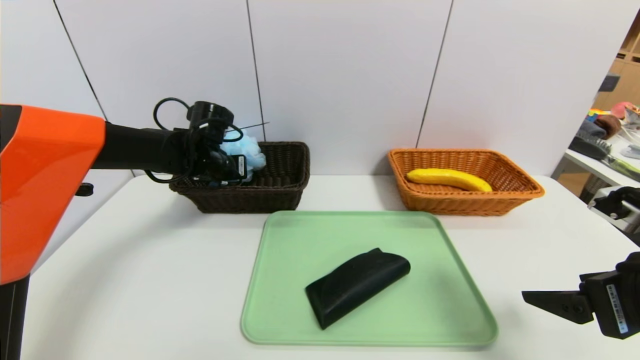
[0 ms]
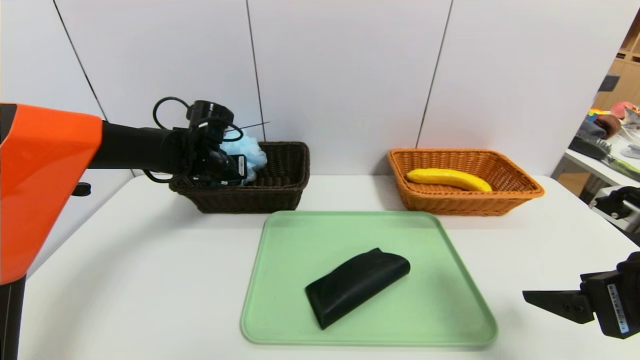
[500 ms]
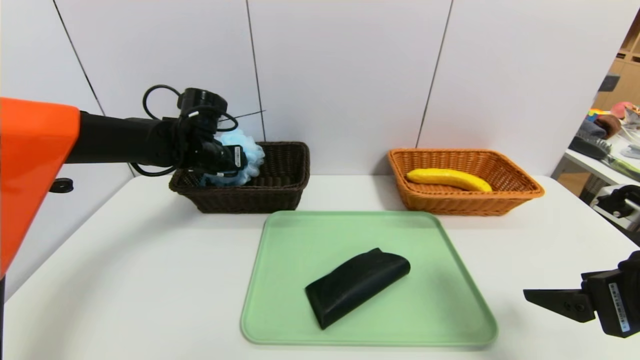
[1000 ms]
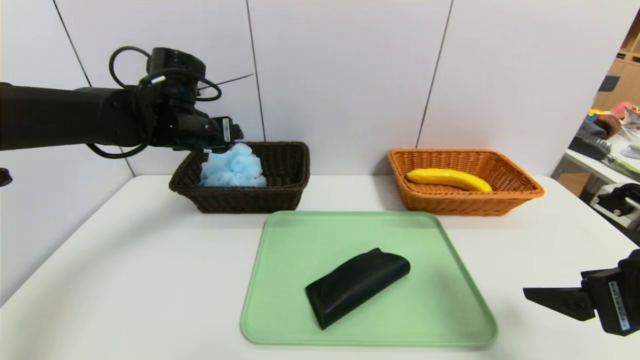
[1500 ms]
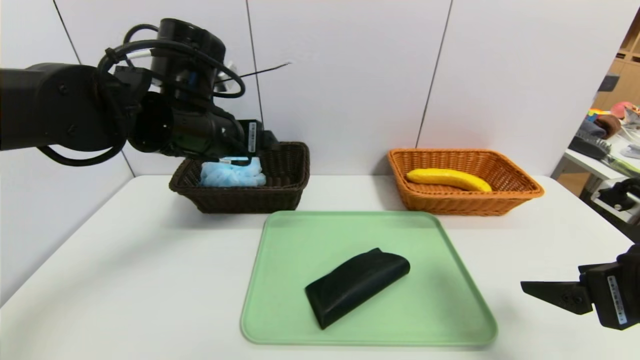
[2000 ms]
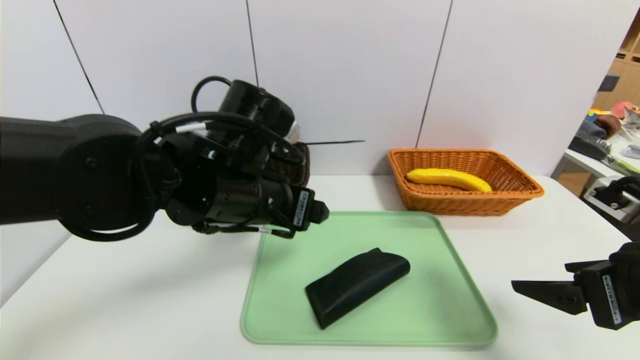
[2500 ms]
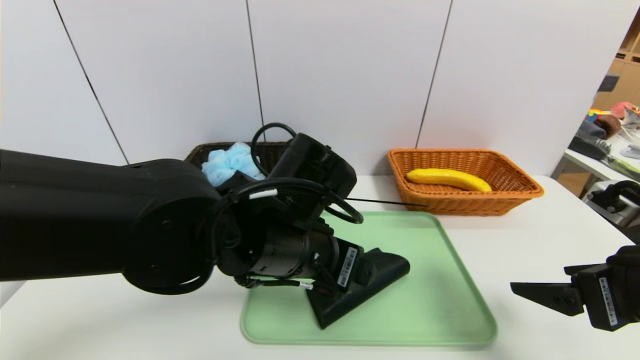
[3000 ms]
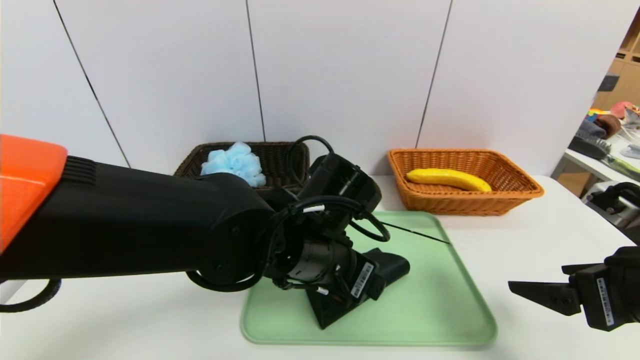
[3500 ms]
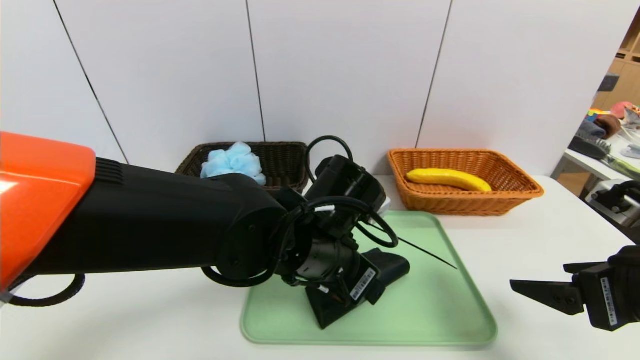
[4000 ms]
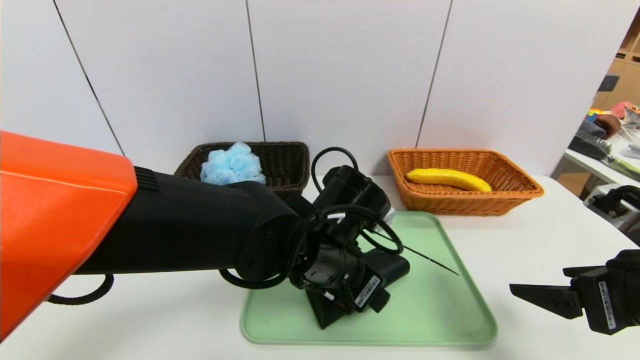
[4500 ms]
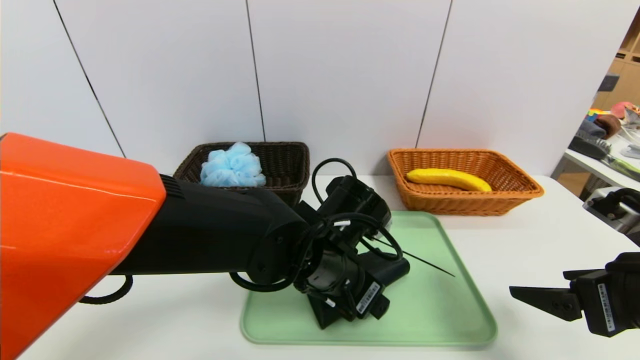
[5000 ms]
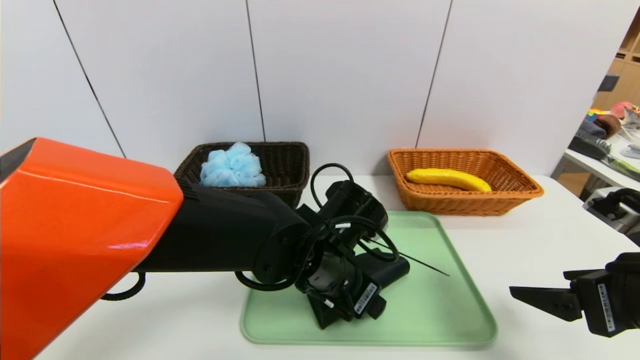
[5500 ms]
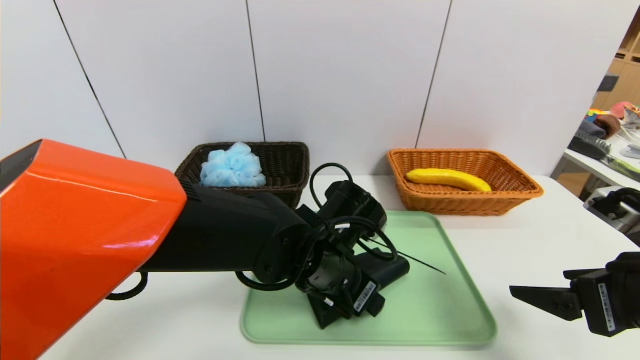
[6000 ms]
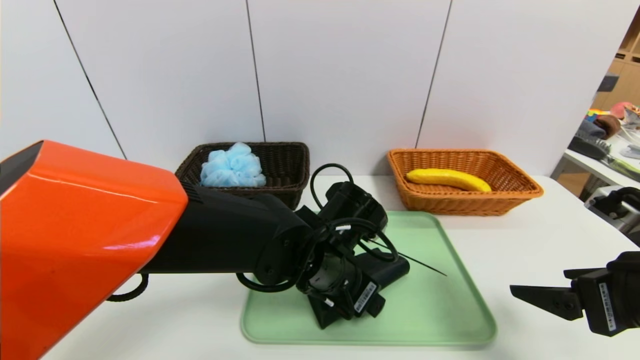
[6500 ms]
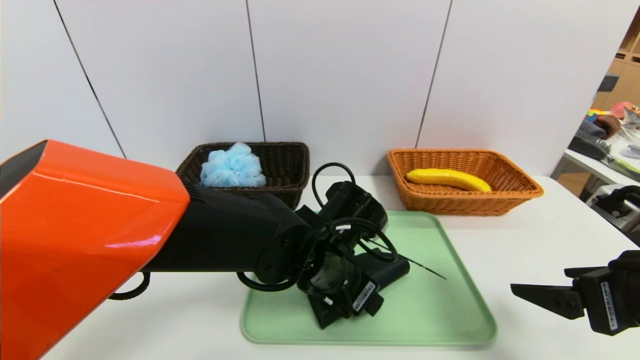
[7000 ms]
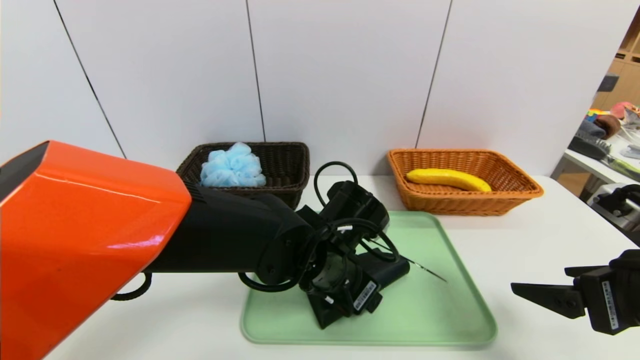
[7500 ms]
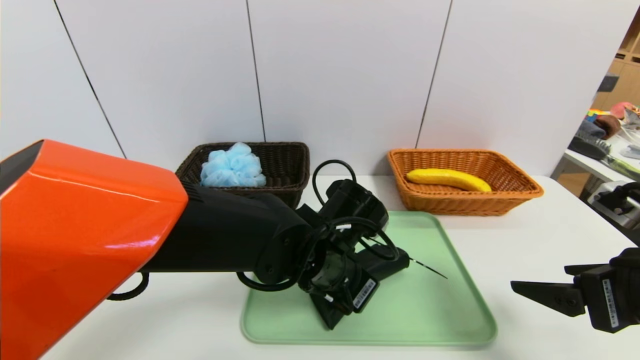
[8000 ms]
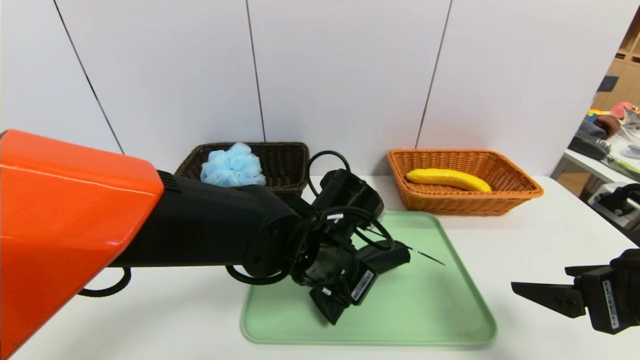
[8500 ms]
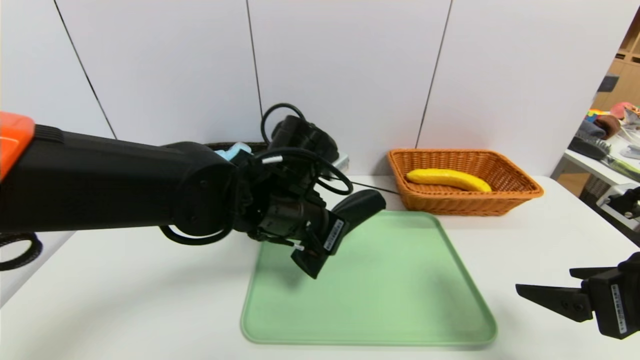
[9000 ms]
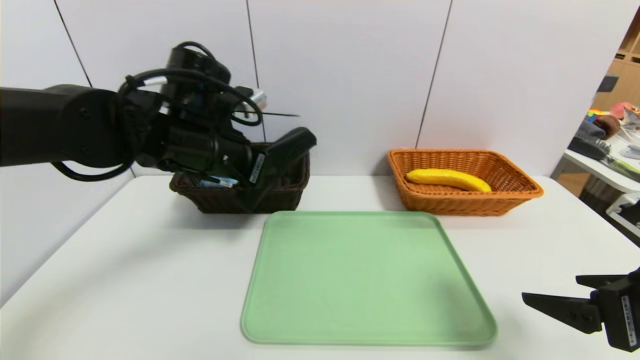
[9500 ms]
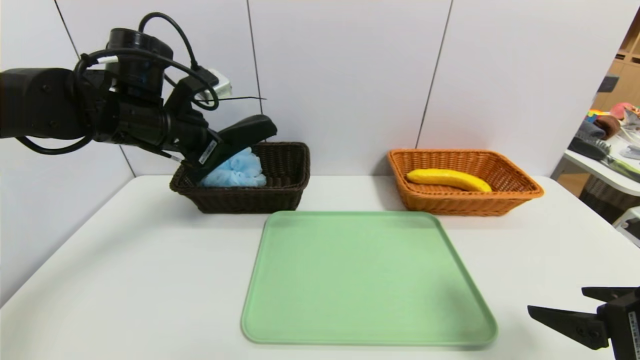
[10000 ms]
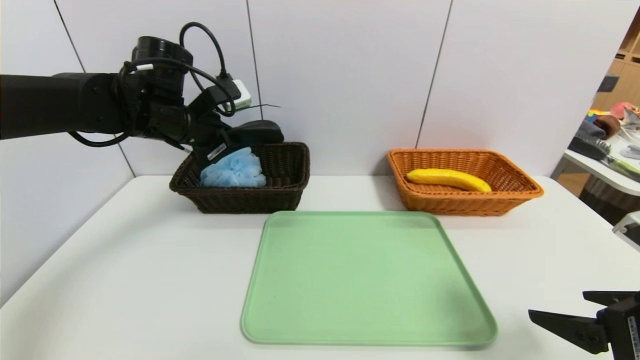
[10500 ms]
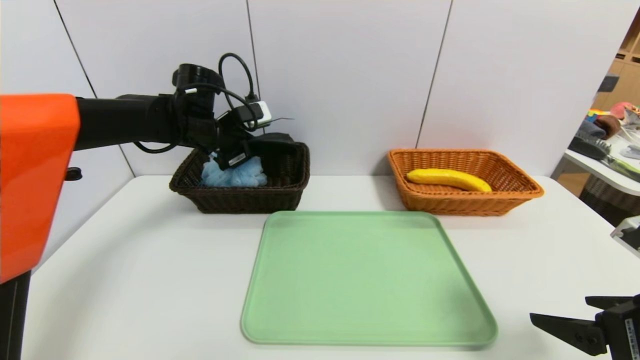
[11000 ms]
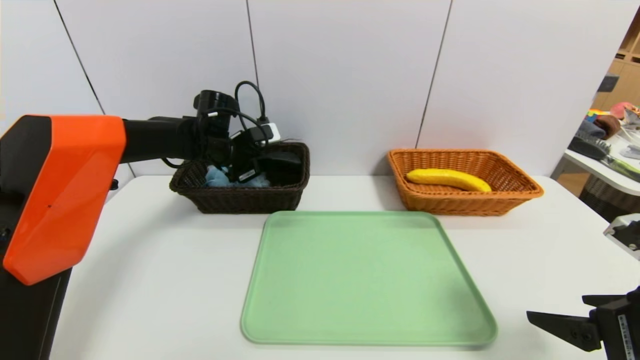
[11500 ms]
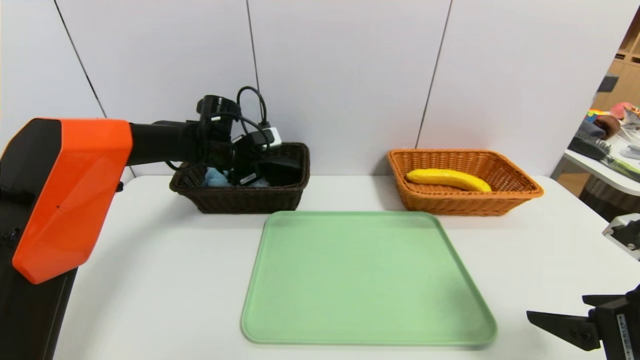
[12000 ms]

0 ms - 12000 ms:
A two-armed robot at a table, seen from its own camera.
Task of the whole recording: place the food in the right basket with the right gripper, and place the non food items in the left basket with the left gripper.
0 ms - 2000 ms: The left gripper travels backward and upward by approximately 15 cm, and opens its fingers.
2000 ms - 4000 ms: The left gripper heads to the right, downward and backward, covering roughly 20 cm.
4000 ms - 6000 ms: The grippers stay close to where they were, moving slightly.
6000 ms - 8000 ms: The left gripper closes.
8000 ms - 10000 ms: The left gripper shifts some 30 cm to the left, upward and forward.
10000 ms - 12000 ms: The left gripper goes roughly 15 cm forward and downward.

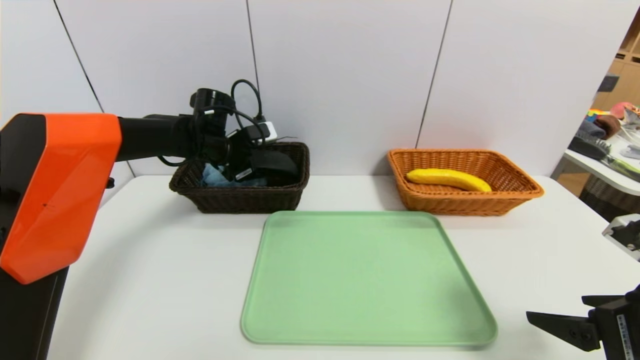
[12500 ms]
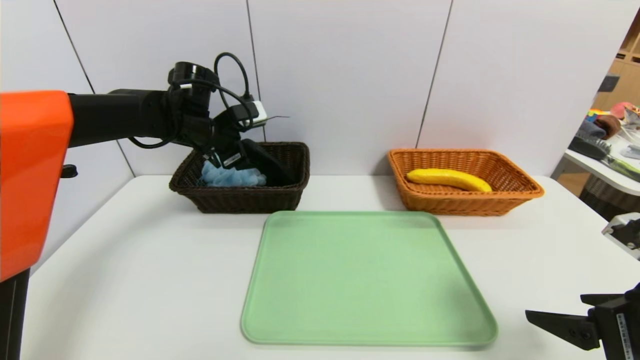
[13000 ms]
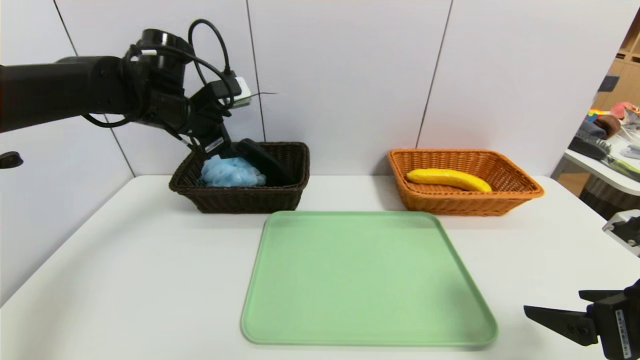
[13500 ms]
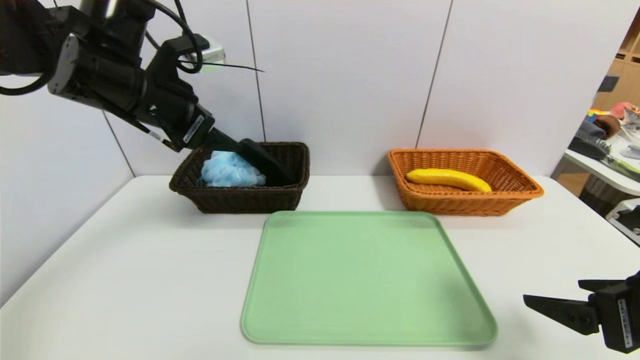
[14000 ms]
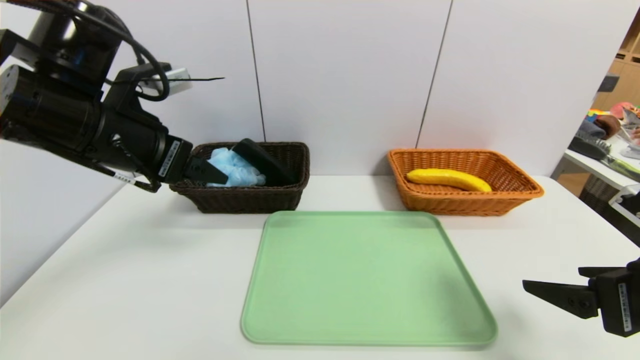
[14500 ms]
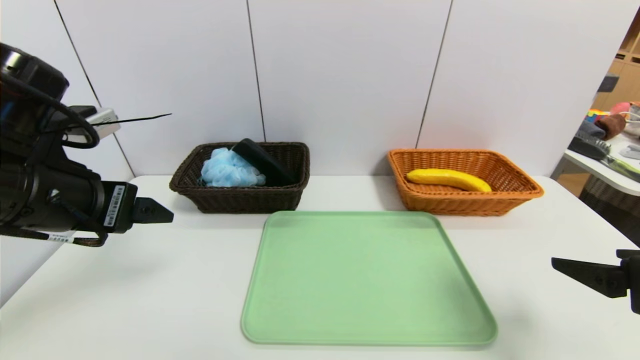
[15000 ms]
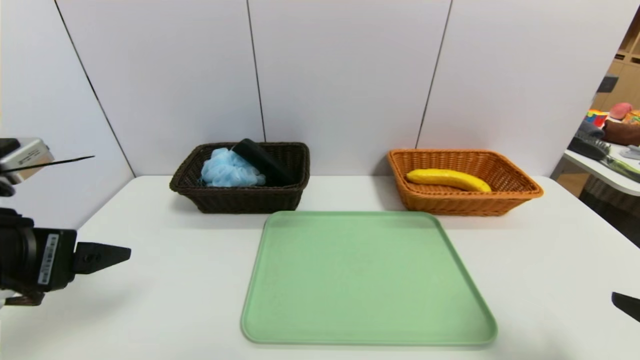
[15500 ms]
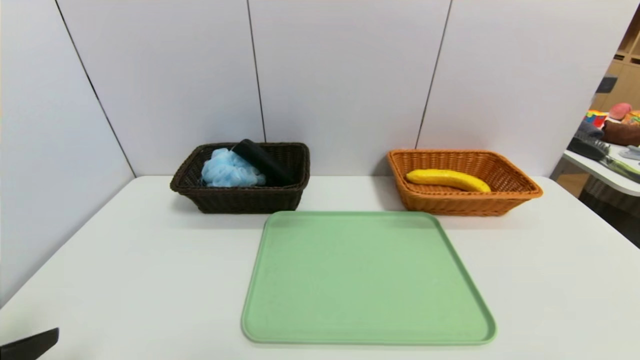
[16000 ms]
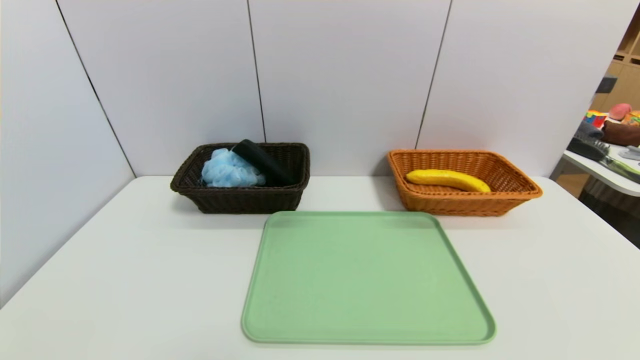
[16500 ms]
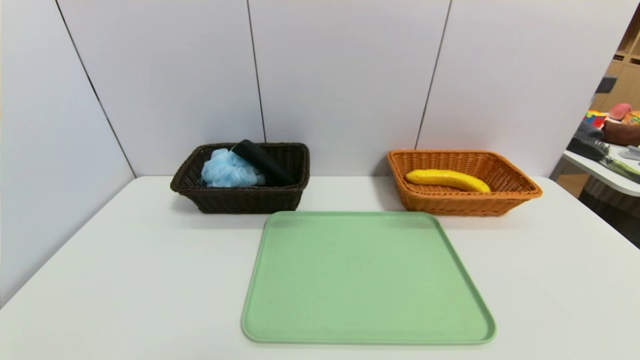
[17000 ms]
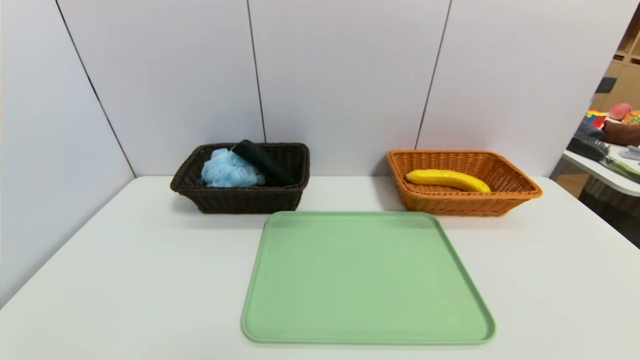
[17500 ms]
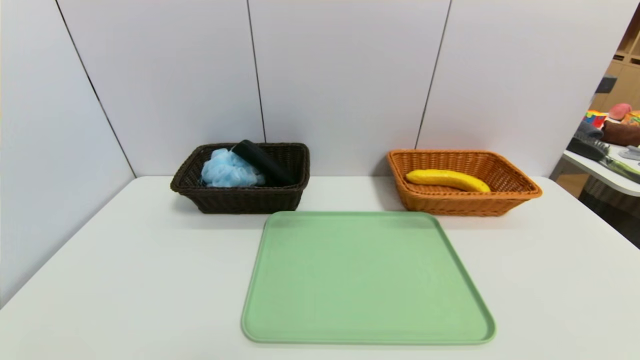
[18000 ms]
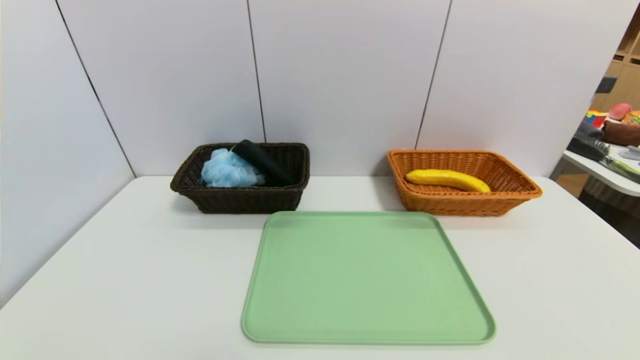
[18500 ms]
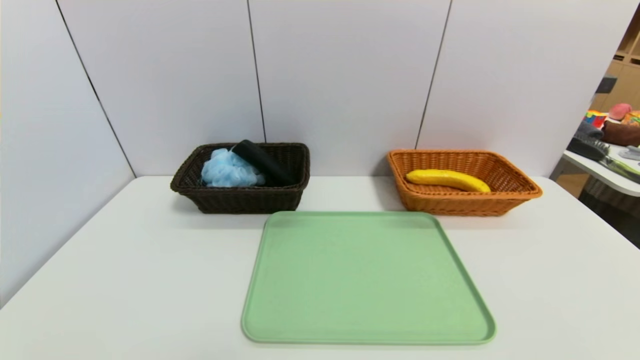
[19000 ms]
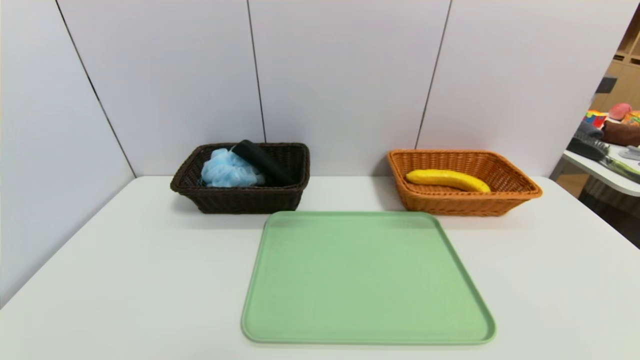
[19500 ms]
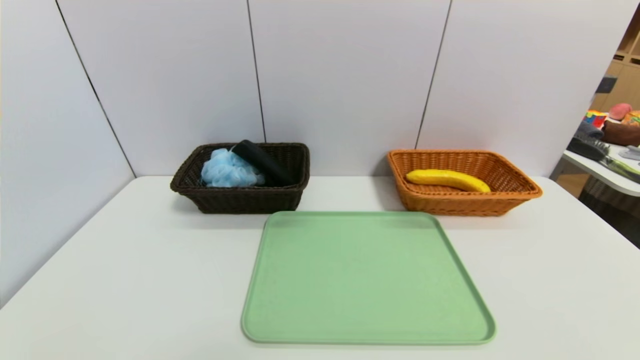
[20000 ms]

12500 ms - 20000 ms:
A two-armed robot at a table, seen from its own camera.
Task of the whole recording: place the food in the right basket with the right gripper, and place the non food items in the left basket with the left gripper.
12500 ms - 14500 ms: The left gripper is displaced backward and upward by approximately 25 cm.
14500 ms - 16500 ms: The right gripper is displaced backward by roughly 20 cm. The left gripper shifts approximately 30 cm backward and downward.
